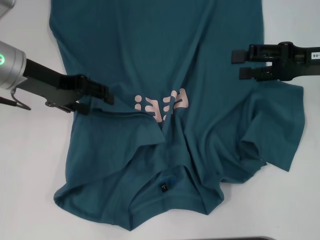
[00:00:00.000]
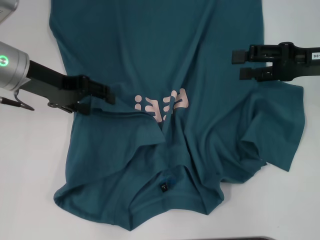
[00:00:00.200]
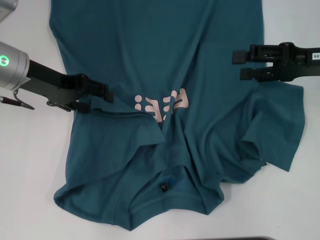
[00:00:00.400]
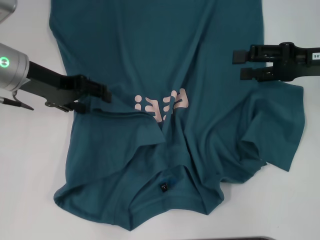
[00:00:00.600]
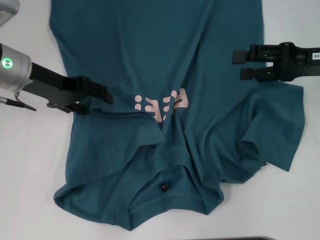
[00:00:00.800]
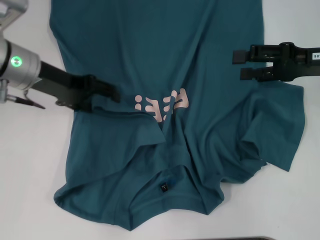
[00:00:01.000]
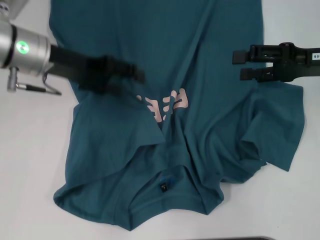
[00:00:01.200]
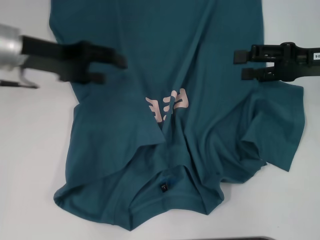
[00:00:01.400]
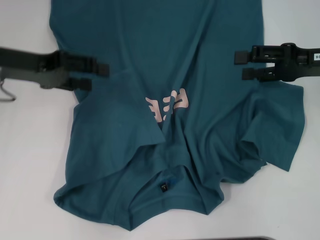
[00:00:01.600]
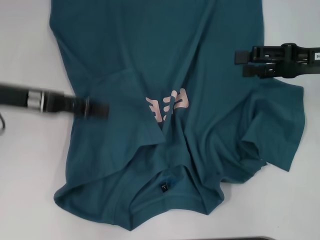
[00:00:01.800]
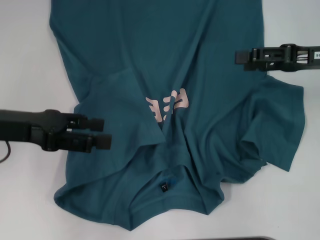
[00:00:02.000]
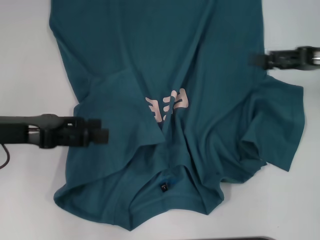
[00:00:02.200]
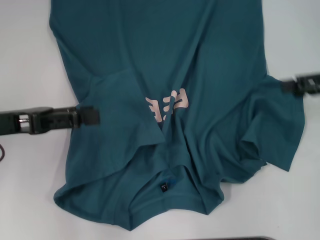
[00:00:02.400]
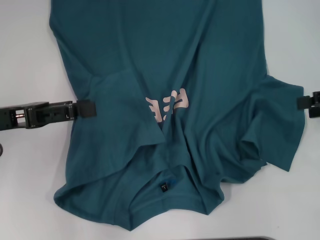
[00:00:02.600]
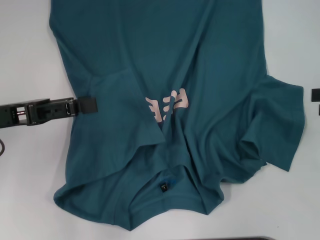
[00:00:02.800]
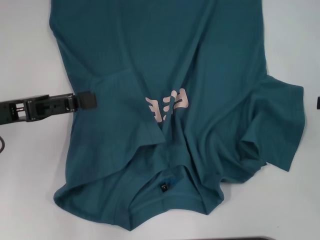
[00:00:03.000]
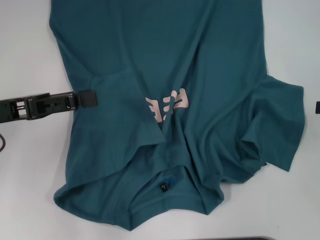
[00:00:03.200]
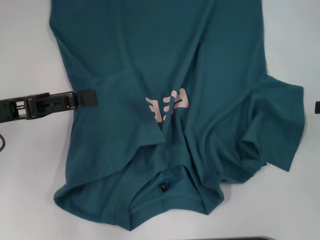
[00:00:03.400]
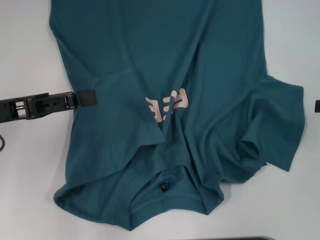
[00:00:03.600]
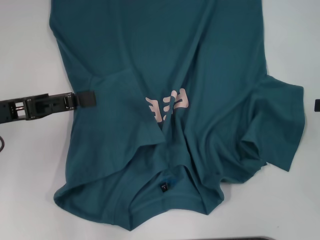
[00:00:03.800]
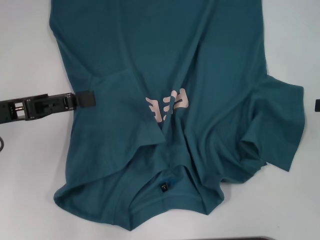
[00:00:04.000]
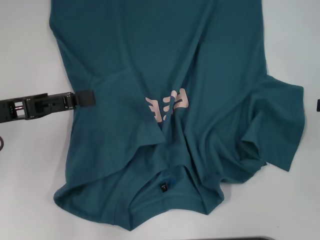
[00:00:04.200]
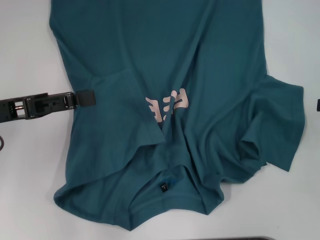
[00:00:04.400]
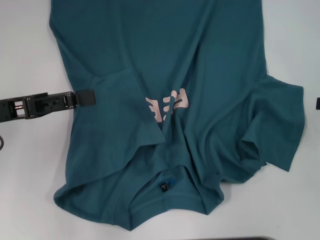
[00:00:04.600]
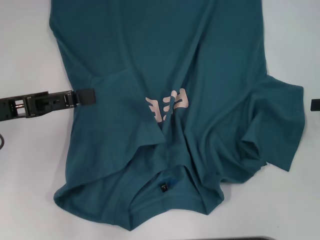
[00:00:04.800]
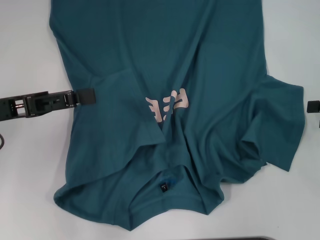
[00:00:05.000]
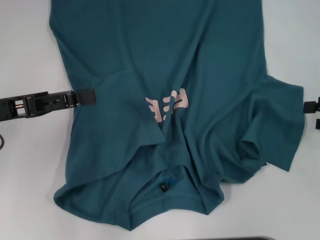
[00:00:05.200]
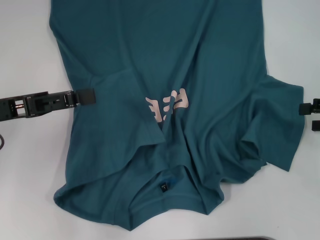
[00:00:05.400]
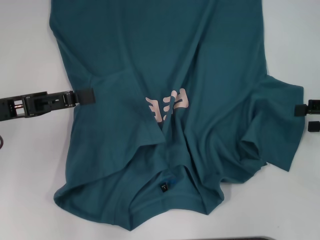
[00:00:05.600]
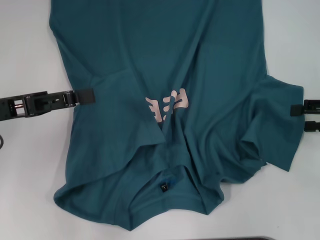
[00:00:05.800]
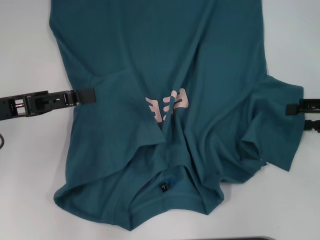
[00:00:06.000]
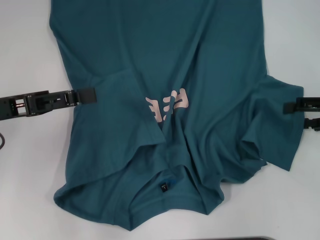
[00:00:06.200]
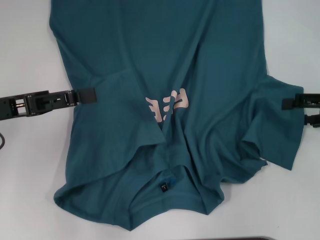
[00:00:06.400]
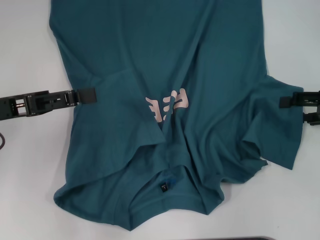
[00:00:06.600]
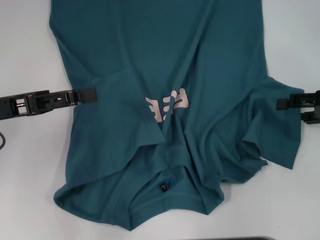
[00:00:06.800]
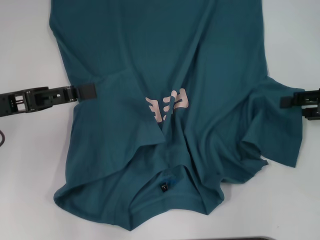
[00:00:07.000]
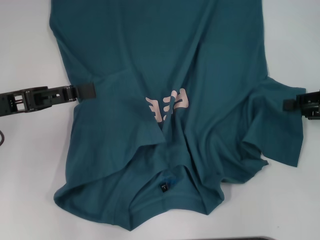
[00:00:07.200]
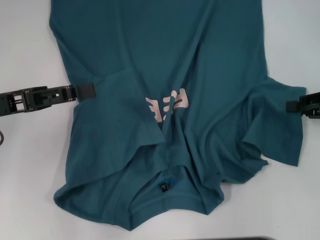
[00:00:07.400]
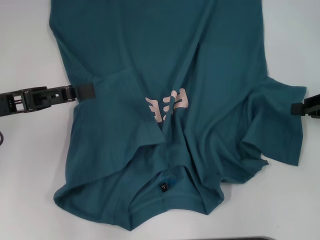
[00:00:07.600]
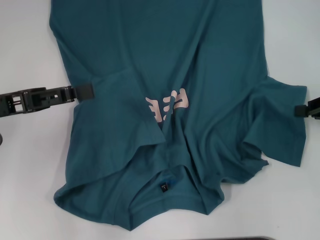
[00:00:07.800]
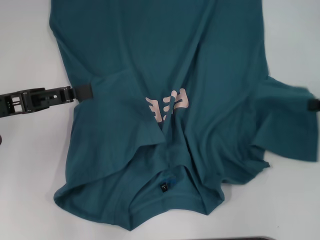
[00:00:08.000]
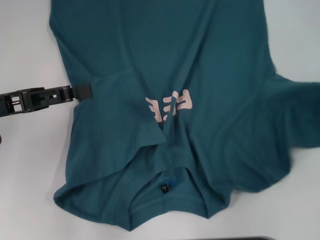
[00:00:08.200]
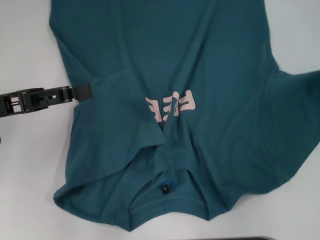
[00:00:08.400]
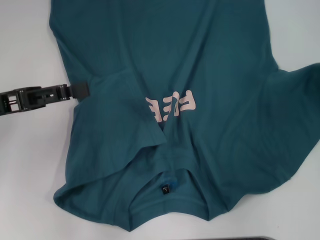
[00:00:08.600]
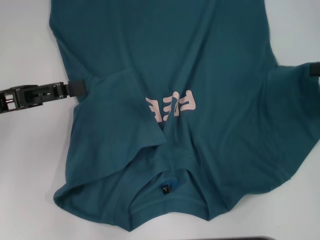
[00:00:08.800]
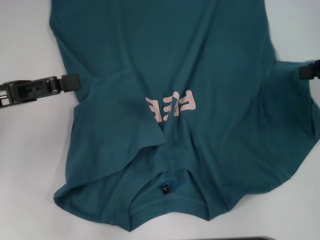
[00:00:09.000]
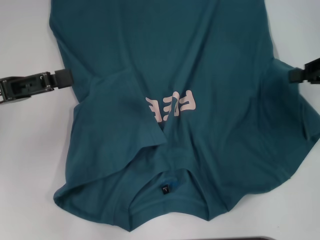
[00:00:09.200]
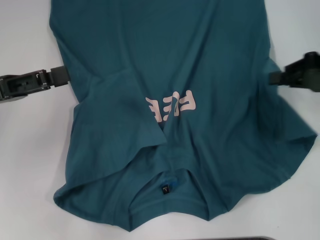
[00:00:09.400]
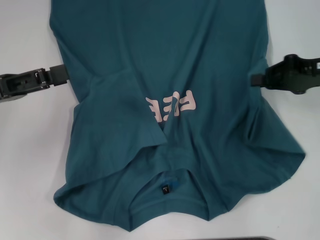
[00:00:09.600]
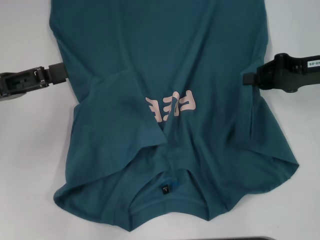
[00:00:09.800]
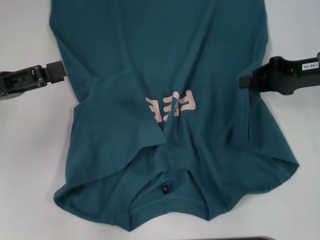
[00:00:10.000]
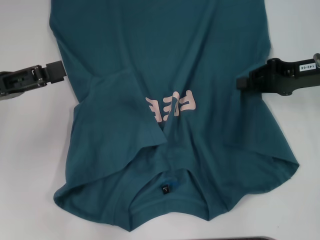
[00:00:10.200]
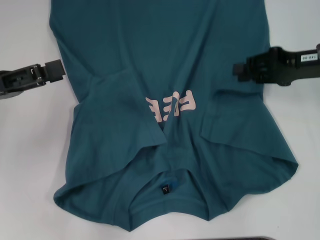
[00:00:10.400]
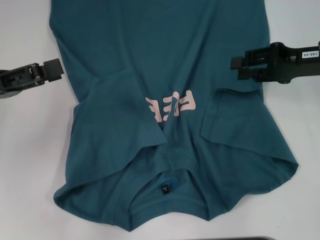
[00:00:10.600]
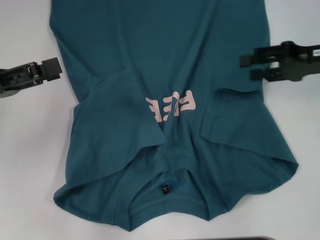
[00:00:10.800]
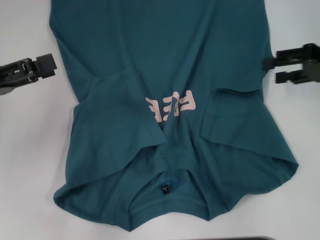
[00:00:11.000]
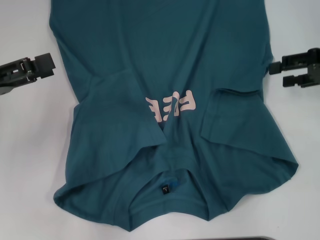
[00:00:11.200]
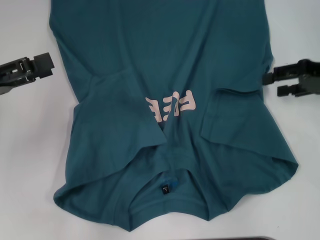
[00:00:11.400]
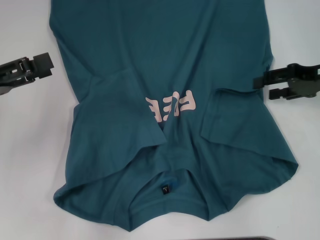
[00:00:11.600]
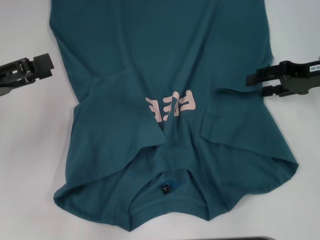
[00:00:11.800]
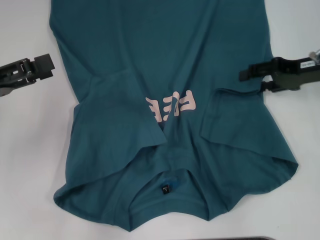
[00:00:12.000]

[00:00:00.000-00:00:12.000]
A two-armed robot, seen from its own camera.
00:00:01.600 to 00:00:03.000: The right gripper travels to the right and backward by roughly 15 cm. The left gripper goes approximately 10 cm backward.
00:00:03.000 to 00:00:04.400: Neither gripper changes place.
00:00:04.400 to 00:00:06.000: The grippers move only a little.
00:00:06.000 to 00:00:07.600: The right gripper closes up.
00:00:07.600 to 00:00:09.000: The right gripper travels upward by some 5 cm.
00:00:09.000 to 00:00:10.400: The right gripper heads to the left, covering about 5 cm.
00:00:10.400 to 00:00:12.000: The right gripper opens.

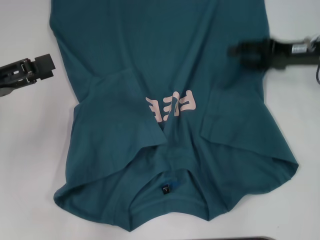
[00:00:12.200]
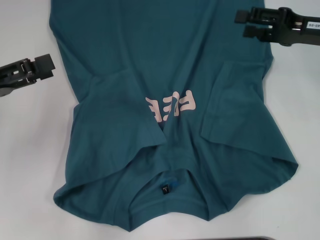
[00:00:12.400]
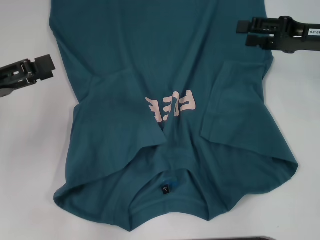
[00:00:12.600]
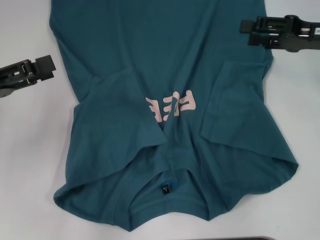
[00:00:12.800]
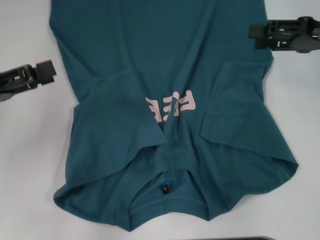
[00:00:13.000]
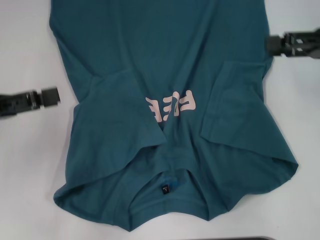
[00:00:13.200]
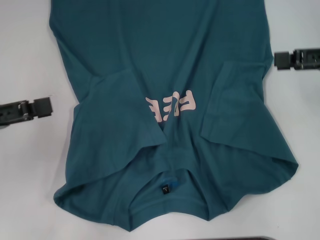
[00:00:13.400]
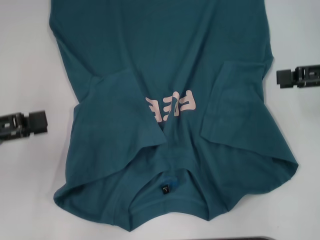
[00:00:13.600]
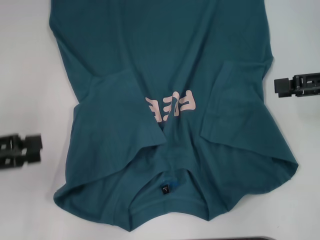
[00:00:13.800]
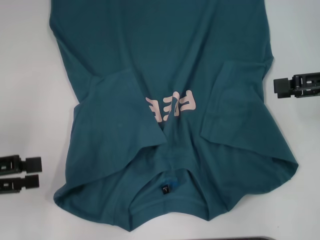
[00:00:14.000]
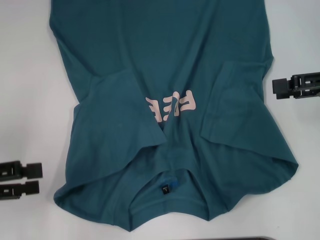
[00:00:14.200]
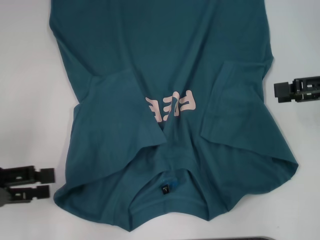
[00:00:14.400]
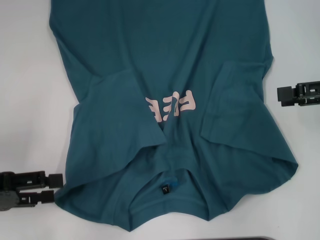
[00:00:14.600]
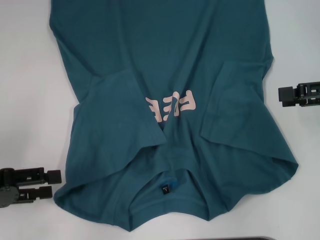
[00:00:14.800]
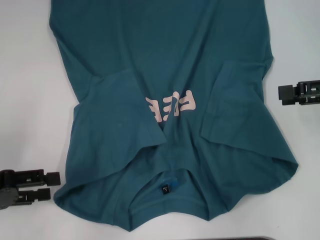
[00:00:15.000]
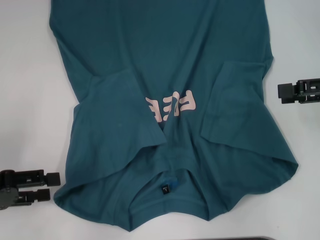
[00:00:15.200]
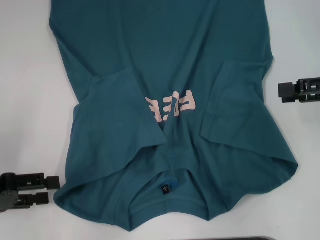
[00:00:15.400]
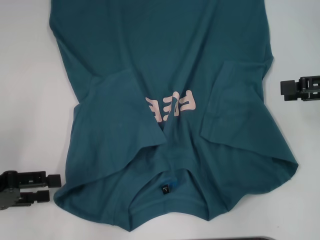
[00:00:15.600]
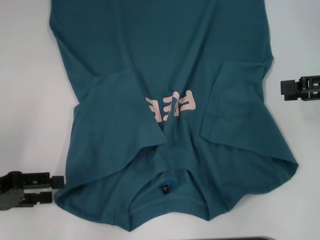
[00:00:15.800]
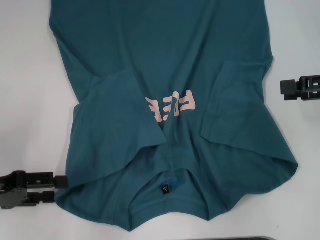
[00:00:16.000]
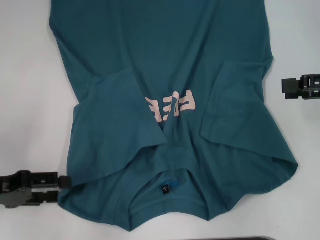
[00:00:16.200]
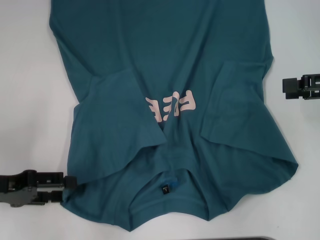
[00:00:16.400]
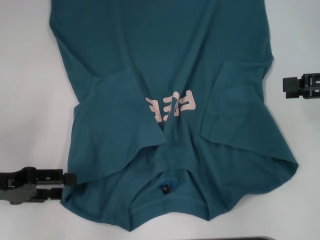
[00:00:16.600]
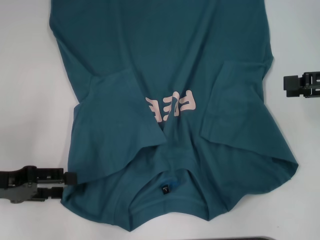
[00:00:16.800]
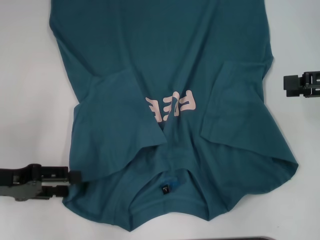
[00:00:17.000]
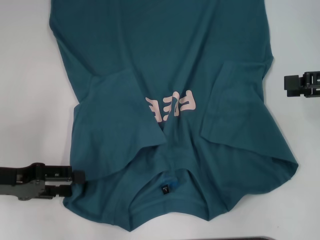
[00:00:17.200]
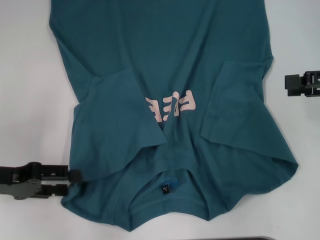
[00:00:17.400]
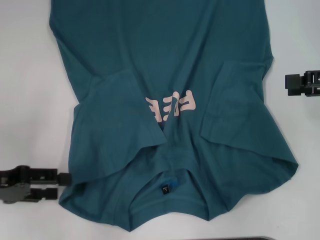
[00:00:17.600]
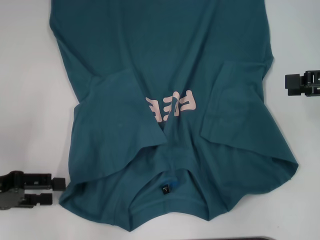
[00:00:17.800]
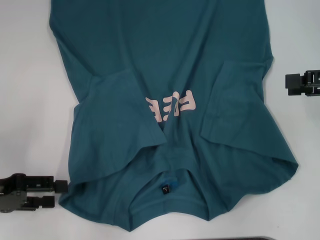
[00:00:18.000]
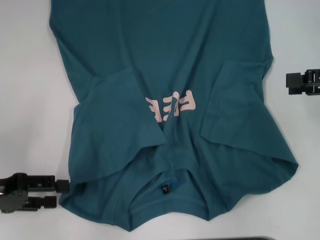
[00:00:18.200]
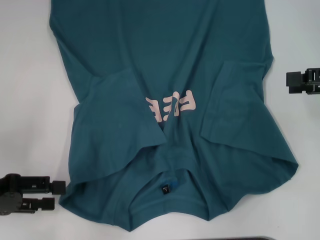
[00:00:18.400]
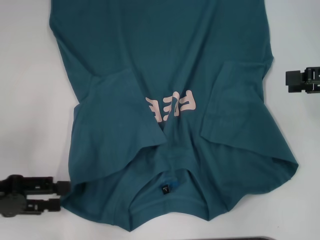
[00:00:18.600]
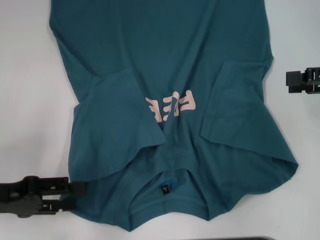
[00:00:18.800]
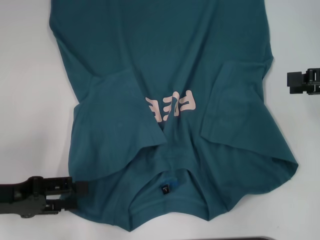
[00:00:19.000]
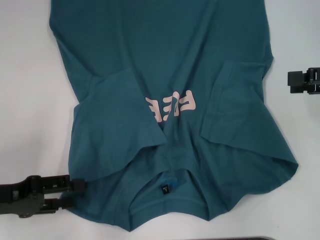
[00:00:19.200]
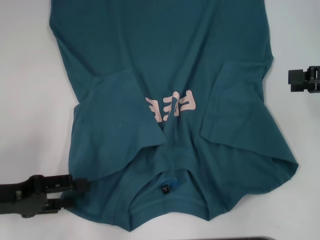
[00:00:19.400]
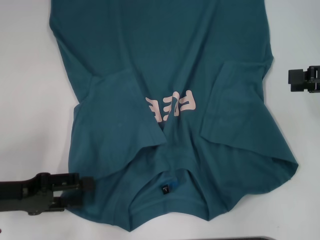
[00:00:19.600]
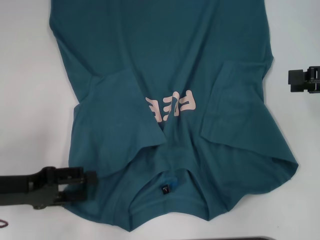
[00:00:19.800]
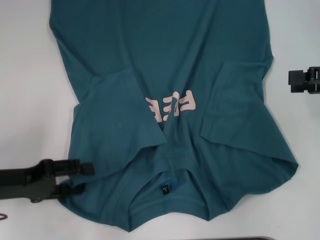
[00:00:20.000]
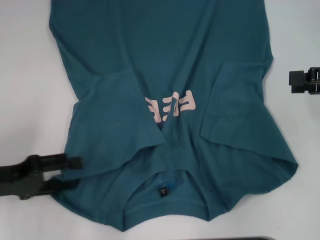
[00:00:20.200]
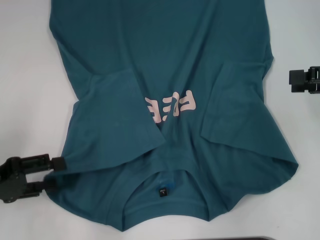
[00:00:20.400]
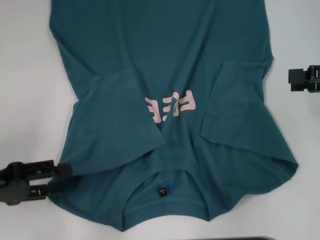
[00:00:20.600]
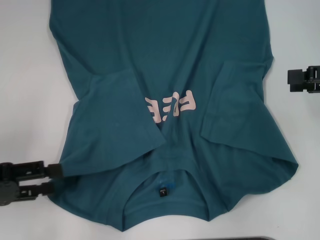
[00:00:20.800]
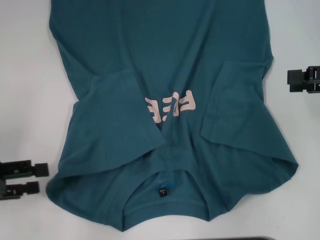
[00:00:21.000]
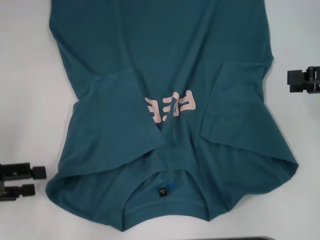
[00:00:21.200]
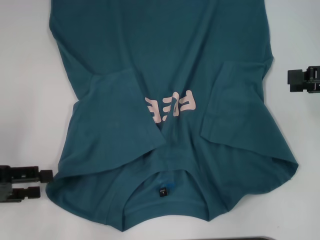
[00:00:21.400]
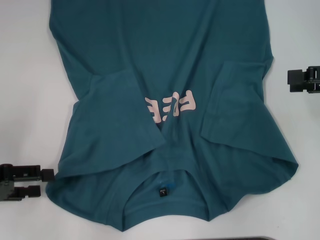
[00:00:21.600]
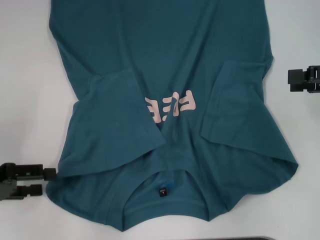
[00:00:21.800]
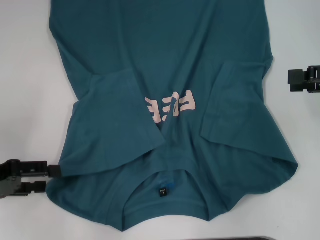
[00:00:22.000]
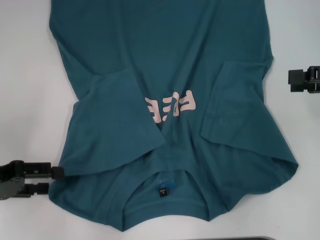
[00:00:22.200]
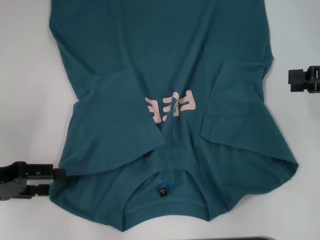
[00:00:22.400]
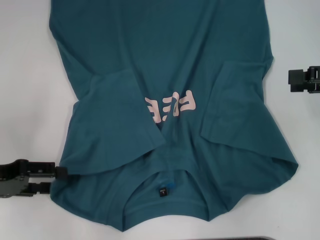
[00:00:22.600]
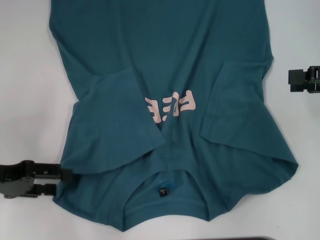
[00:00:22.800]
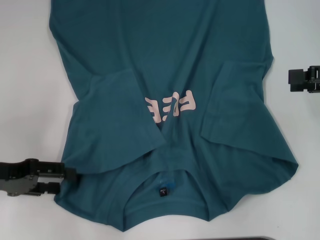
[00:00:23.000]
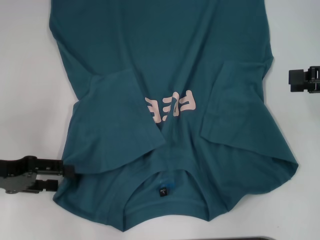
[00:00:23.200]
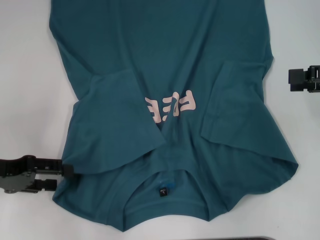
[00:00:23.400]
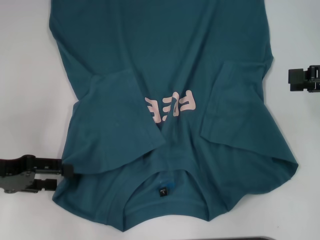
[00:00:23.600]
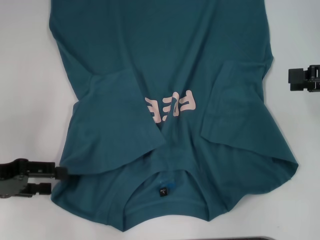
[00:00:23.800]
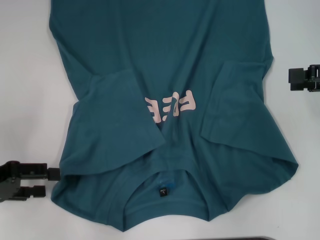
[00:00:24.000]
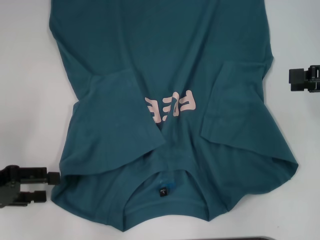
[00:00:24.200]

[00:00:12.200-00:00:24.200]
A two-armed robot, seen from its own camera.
00:00:12.200 to 00:00:13.800: The left gripper ends up about 5 cm from where it was; the right gripper moves backward and to the right, approximately 10 cm.
00:00:13.800 to 00:00:15.200: The grippers make only small movements.
00:00:15.200 to 00:00:19.800: There are only small adjustments of the grippers.
00:00:19.800 to 00:00:21.200: The left gripper moves to the left, about 5 cm.
00:00:21.200 to 00:00:24.200: The grippers stay close to where they were, moving slightly.
